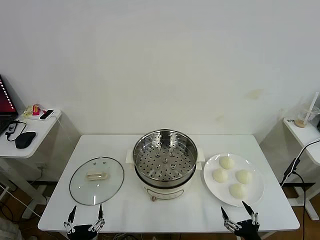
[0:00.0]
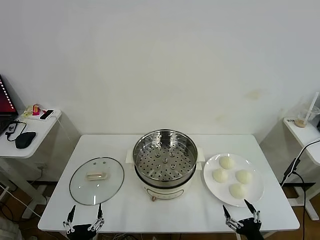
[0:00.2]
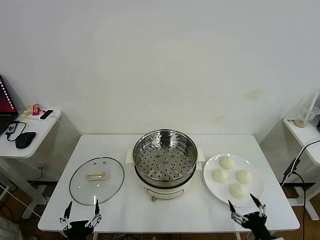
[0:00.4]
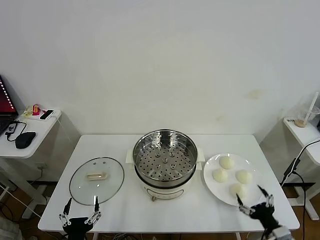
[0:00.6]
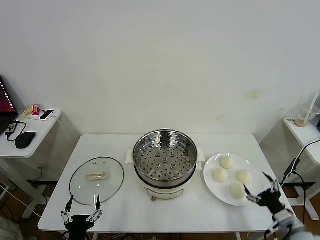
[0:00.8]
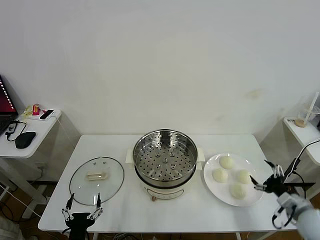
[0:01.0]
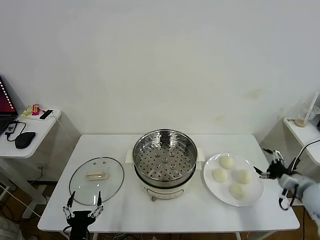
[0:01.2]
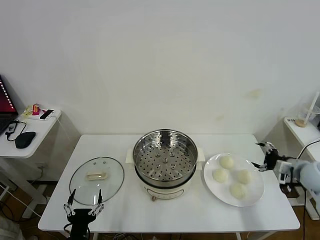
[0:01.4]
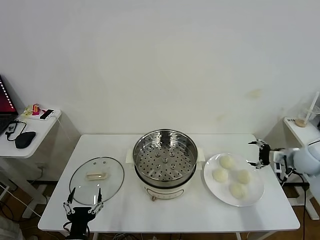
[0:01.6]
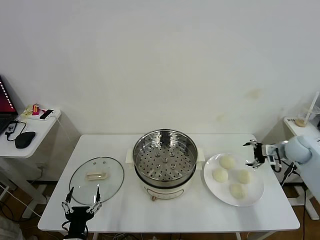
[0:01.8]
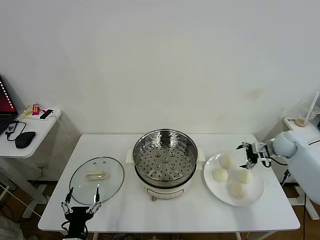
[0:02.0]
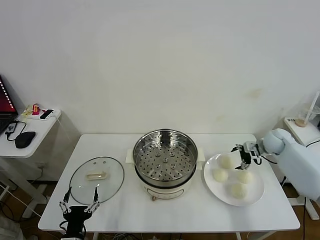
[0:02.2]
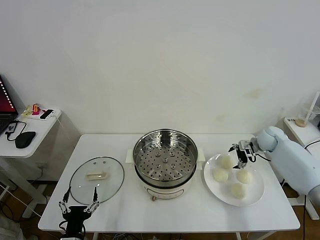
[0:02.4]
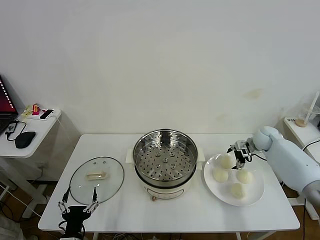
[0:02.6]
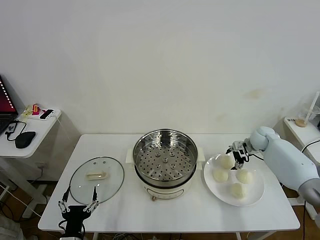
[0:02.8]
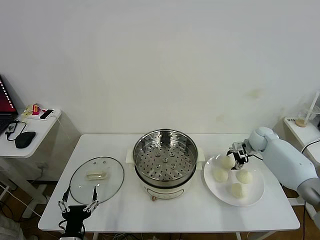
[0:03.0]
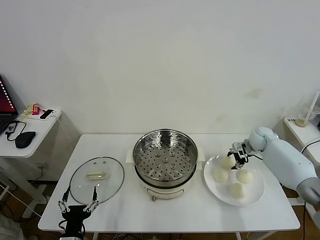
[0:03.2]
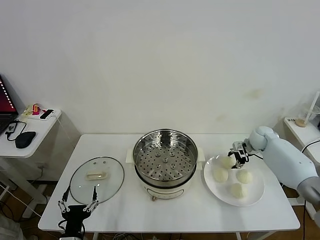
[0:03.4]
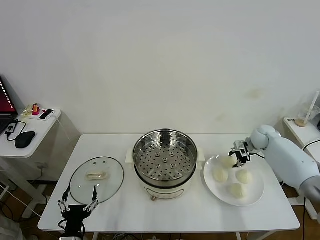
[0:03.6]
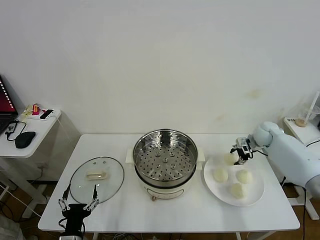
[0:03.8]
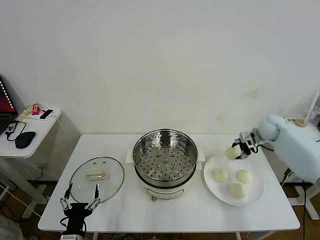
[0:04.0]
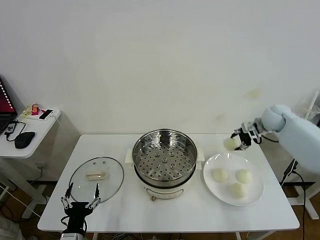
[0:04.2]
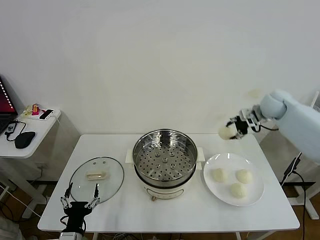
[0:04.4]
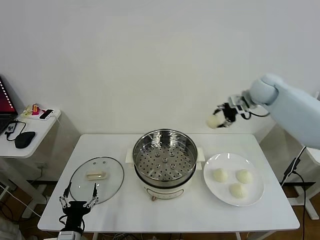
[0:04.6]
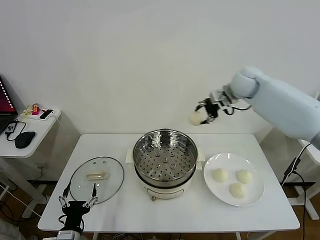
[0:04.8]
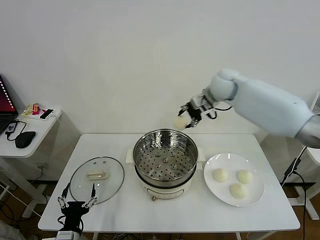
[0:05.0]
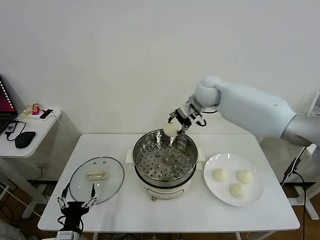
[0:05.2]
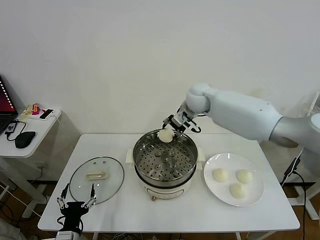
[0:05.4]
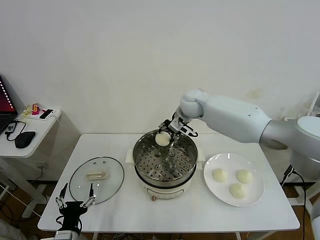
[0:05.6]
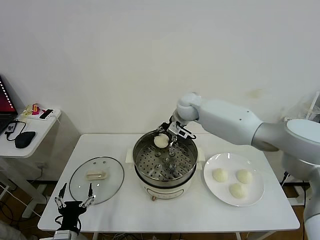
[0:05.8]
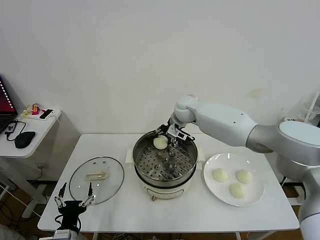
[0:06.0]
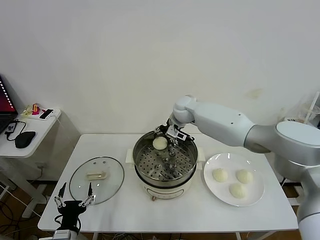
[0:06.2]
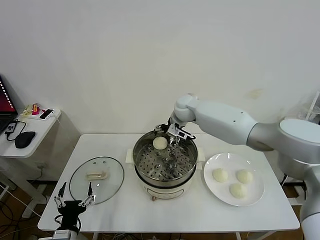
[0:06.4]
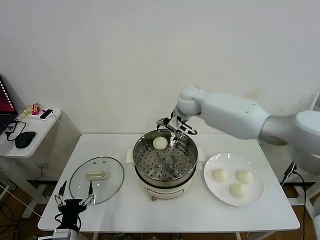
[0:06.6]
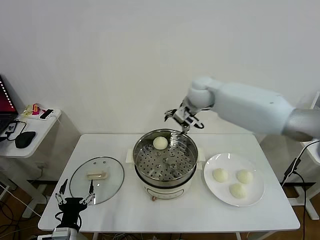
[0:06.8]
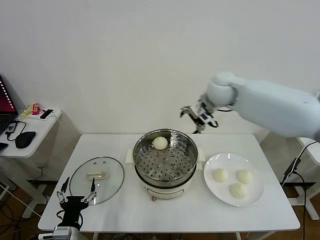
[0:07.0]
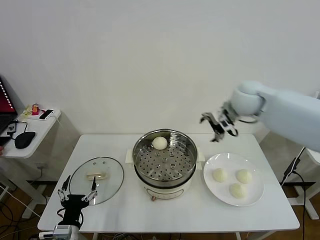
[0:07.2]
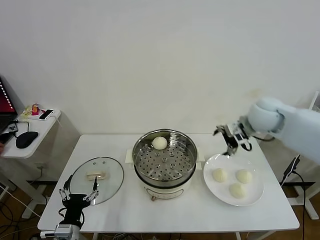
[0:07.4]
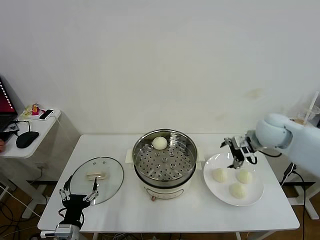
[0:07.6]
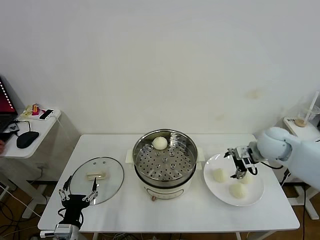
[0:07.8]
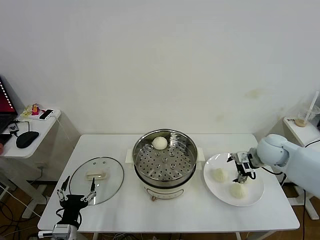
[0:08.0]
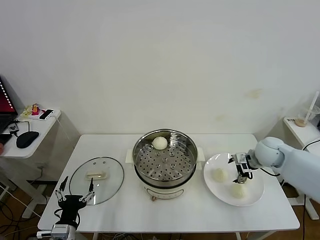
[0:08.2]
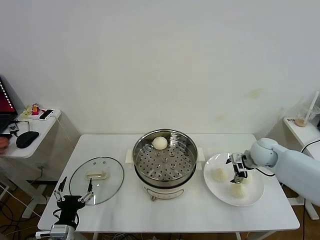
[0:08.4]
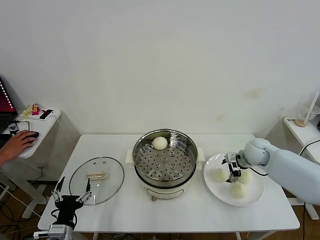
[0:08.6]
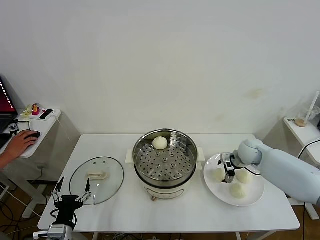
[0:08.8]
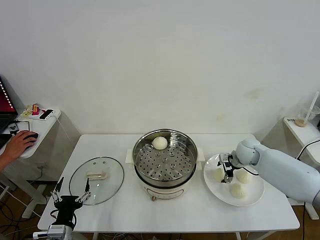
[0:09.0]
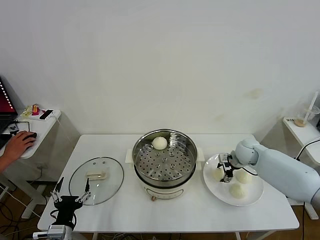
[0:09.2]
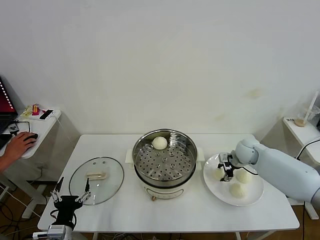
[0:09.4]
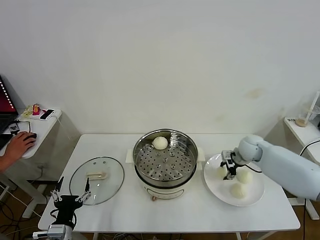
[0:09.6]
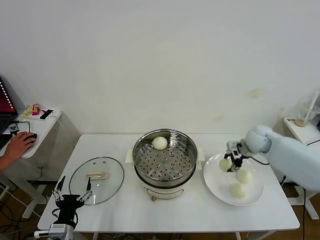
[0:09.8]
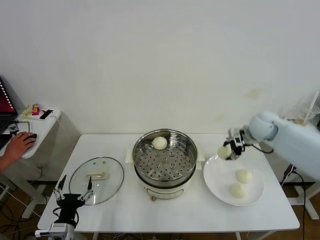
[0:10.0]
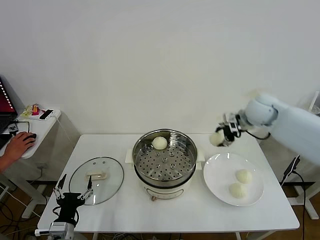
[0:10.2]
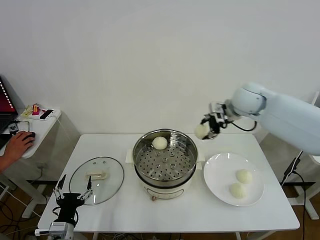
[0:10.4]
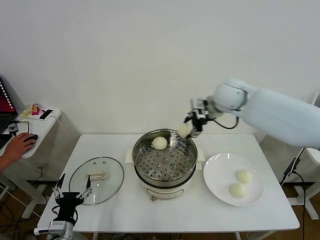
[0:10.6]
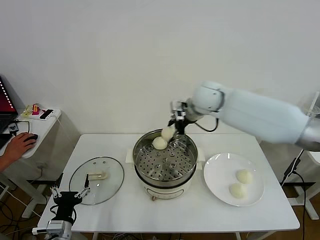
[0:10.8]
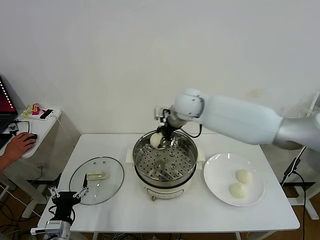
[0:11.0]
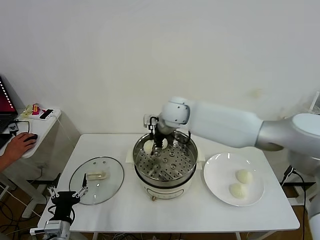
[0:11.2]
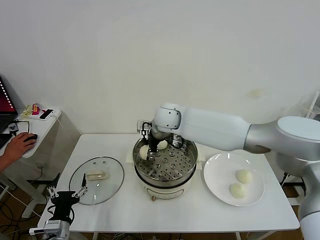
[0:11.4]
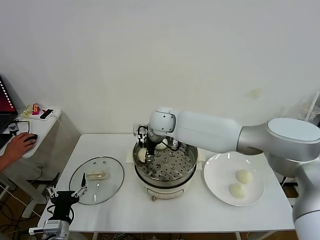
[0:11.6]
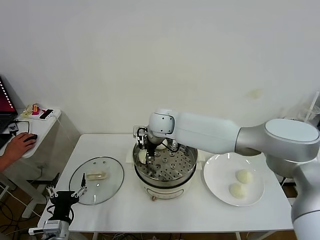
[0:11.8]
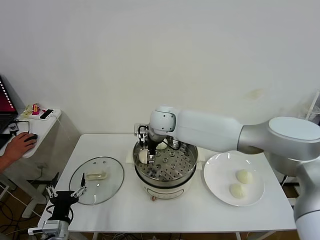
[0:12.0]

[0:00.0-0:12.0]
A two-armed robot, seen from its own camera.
Task of the whole recording: take steamed baozi put them in steamer then cover it.
Step, 0:00.0 to 0:03.4: Grasp the baozi in the plate with right gripper.
Step, 0:03.6 to 0:06.4: Place the baozi on the steamer with right gripper.
Step, 0:06.6 to 0:09.4: Grasp the baozi in the plate with right gripper.
0:01.6 to 0:03.0: The right gripper travels forward, to the left and downward by some 15 cm, and closes.
0:03.0 to 0:04.4: The right gripper goes roughly 20 cm upward, and closes.
0:04.4 to 0:06.0: The right gripper moves to the left, roughly 30 cm.
0:06.0 to 0:07.6: The right gripper shifts approximately 30 cm to the right and backward, and opens its fingers.
0:07.6 to 0:09.0: The right gripper travels downward by about 15 cm, and closes.
0:09.0 to 0:10.4: The right gripper heads upward and to the left, covering about 25 cm, and closes up.
0:10.4 to 0:12.0: The right gripper travels to the left by approximately 20 cm, and opens its fingers.

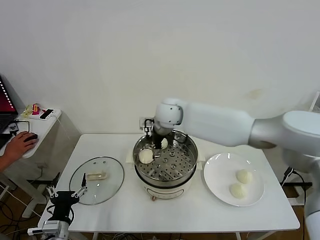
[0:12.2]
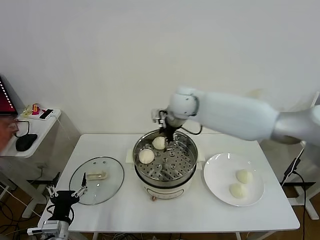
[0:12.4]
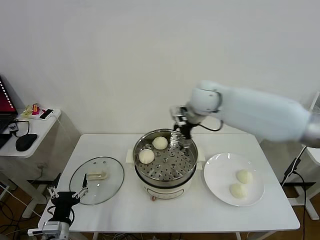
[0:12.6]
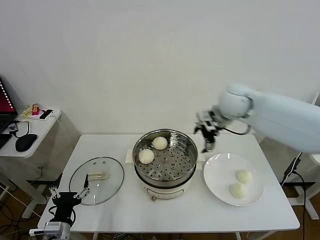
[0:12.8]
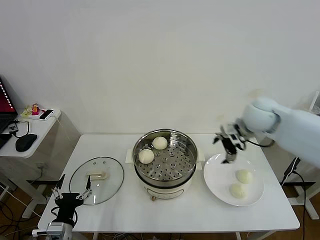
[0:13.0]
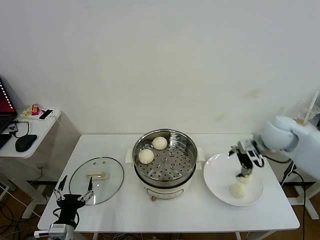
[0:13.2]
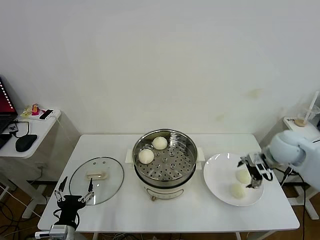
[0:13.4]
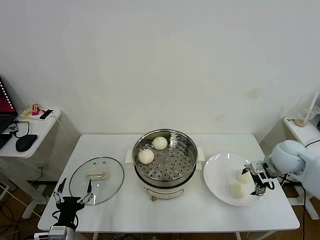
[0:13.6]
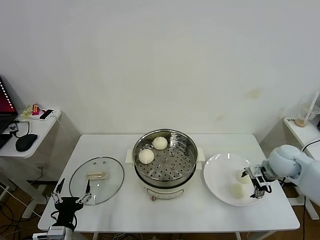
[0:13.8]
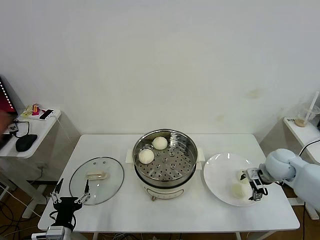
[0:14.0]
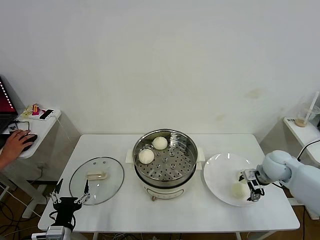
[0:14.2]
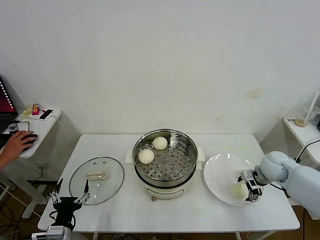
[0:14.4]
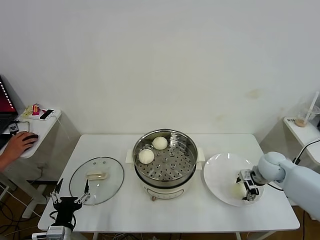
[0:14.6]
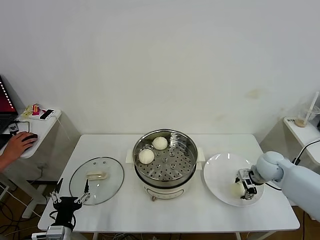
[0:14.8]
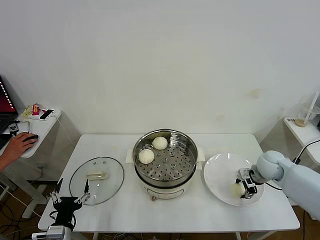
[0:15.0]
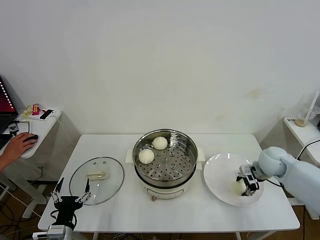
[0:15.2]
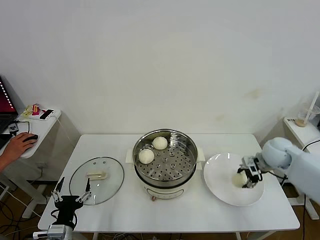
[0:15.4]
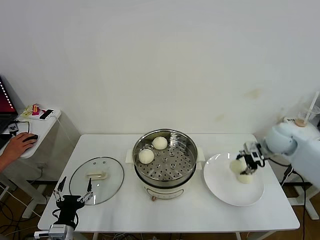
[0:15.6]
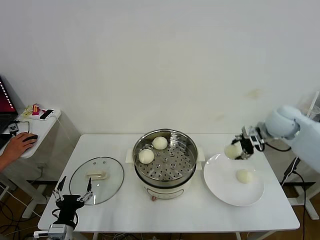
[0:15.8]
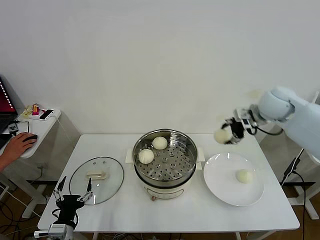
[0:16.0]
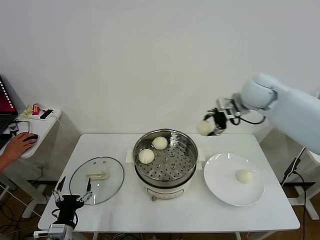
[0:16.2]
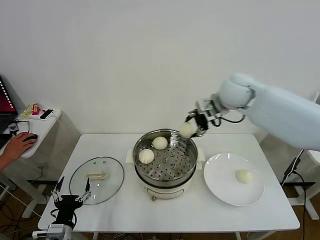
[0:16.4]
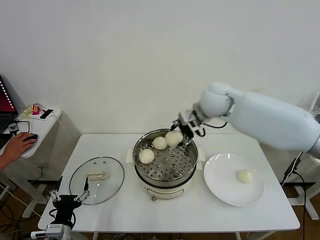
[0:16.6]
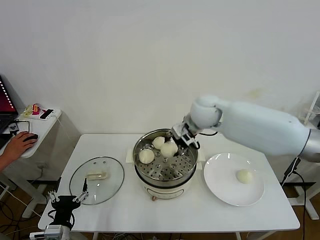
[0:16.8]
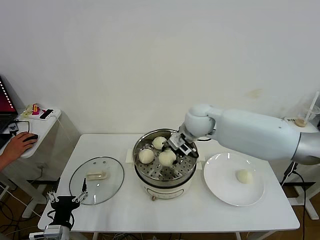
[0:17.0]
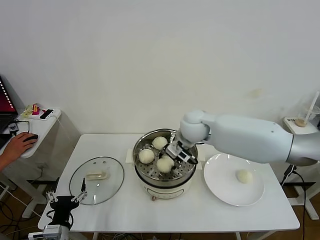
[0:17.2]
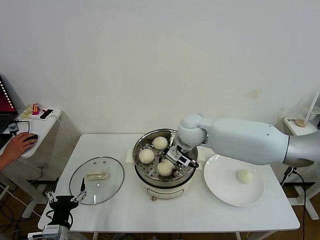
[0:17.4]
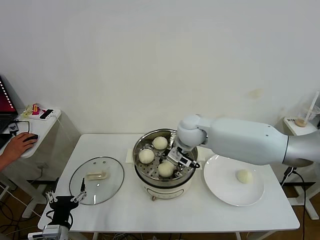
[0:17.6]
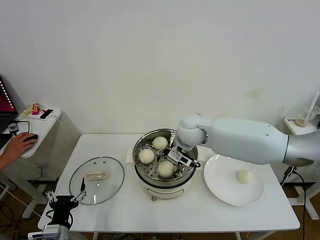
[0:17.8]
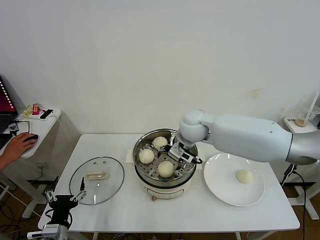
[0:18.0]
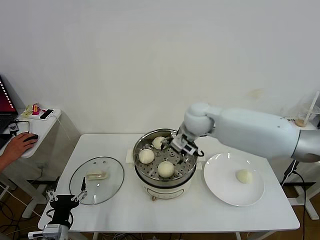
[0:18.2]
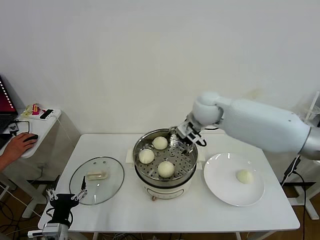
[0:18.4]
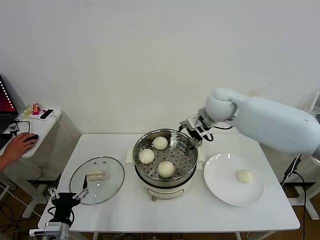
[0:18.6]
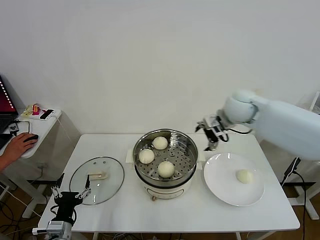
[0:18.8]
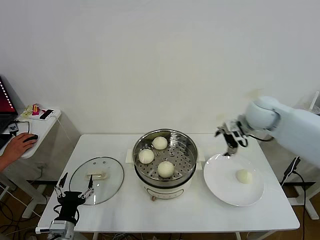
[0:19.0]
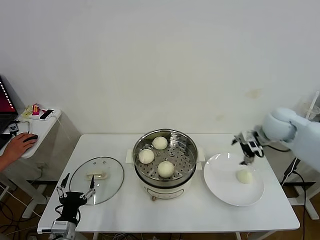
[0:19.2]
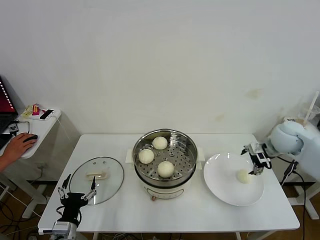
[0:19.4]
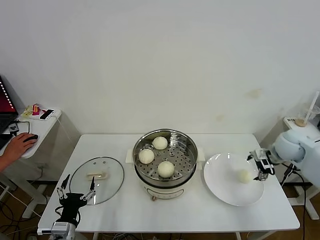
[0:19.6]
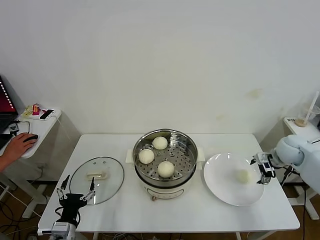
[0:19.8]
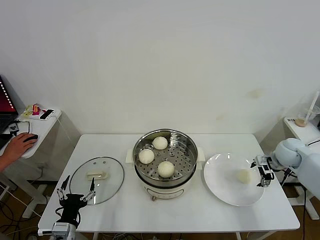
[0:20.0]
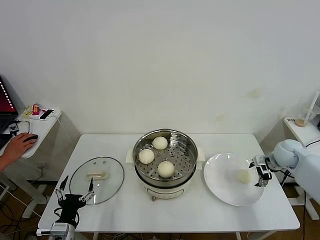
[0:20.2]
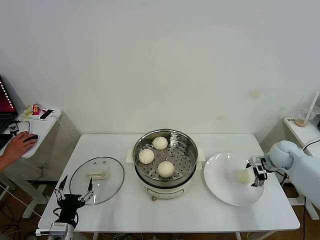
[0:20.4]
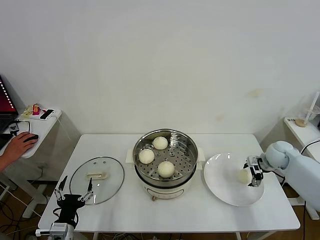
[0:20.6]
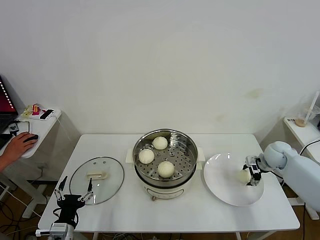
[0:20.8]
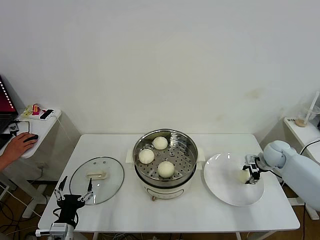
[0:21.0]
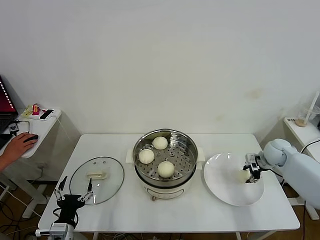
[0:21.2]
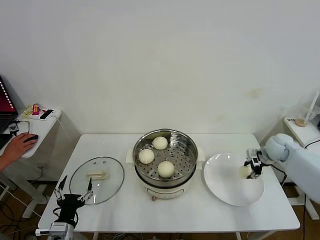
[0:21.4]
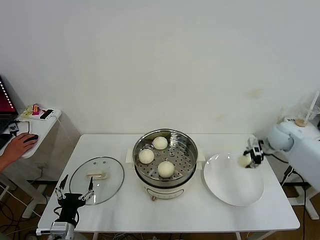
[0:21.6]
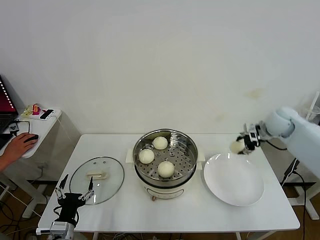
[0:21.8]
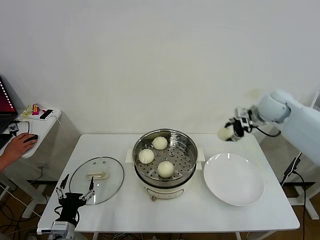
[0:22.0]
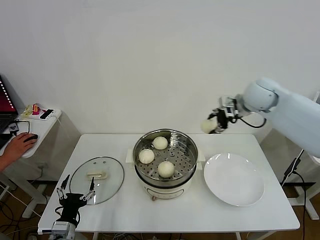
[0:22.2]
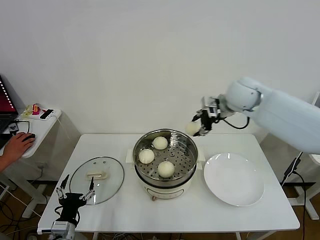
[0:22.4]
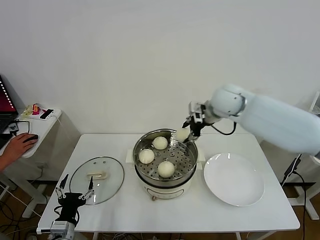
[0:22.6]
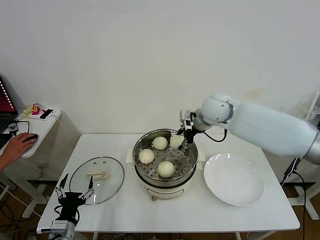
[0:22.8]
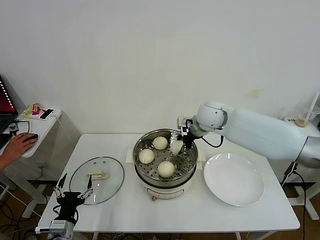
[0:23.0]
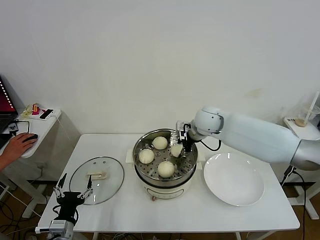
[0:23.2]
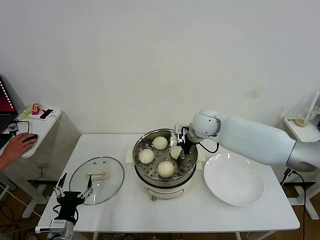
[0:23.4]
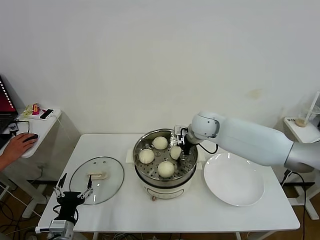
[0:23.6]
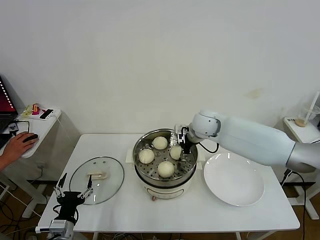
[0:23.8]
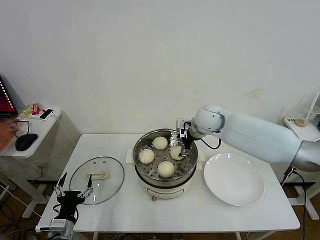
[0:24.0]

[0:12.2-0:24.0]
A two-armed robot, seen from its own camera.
Task of the whole recording: take steamed baozi put them in steamer then cover it.
Step, 0:12.2 to 0:15.0: Grasp the baozi in the plate with right gripper.
Step, 0:15.2 to 0:18.0: Place the baozi on the steamer with right gripper.
Step, 0:18.2 to 0:21.0: Grasp the baozi in the plate with right gripper.
Step, 0:21.4 to 0:24.0: Place the baozi on the steamer with right gripper.
0:12.2 to 0:13.6: The right gripper shifts approximately 35 cm to the right.
0:13.6 to 0:15.2: The right gripper changes place by some 5 cm, and closes.
0:15.2 to 0:16.6: The right gripper goes about 30 cm to the left and upward.
0:16.6 to 0:18.2: The right gripper opens up.
0:18.2 to 0:19.6: The right gripper moves to the right, some 30 cm.
0:19.6 to 0:21.0: The right gripper travels downward by approximately 10 cm, and closes up.
0:21.0 to 0:22.6: The right gripper heads to the left and upward, covering about 35 cm.
0:22.6 to 0:24.0: The right gripper is displaced downward by about 5 cm, and opens up.
